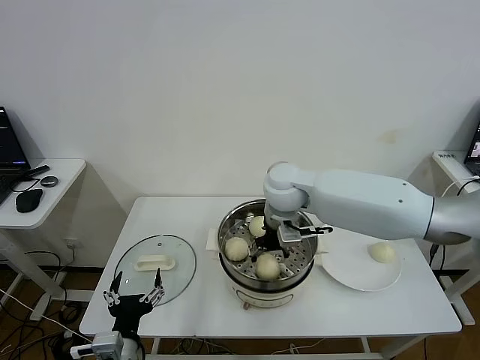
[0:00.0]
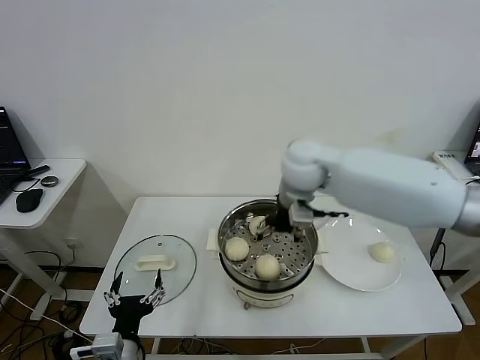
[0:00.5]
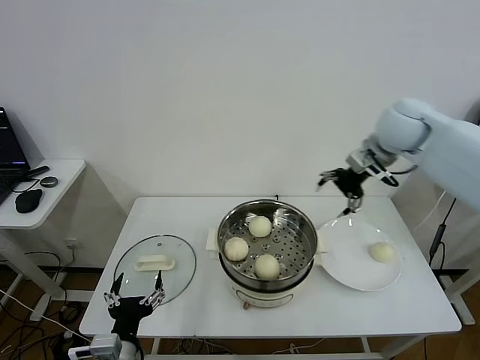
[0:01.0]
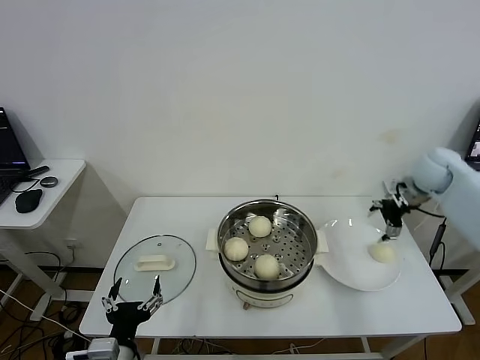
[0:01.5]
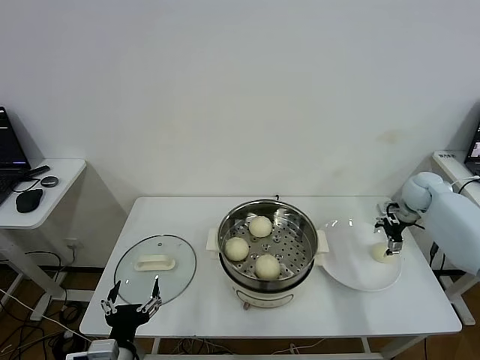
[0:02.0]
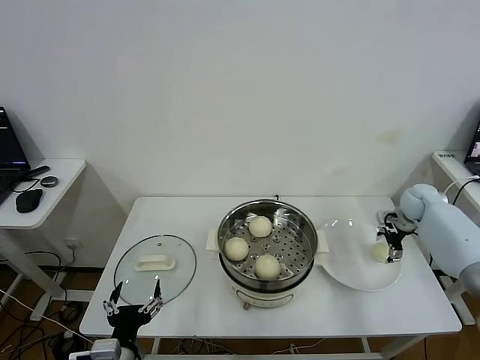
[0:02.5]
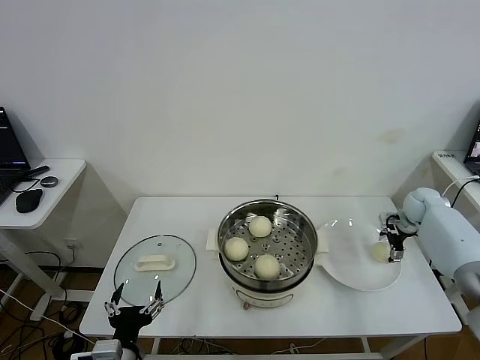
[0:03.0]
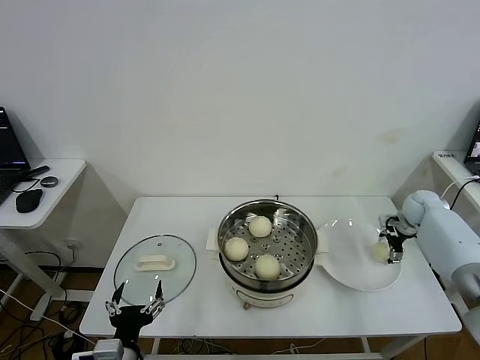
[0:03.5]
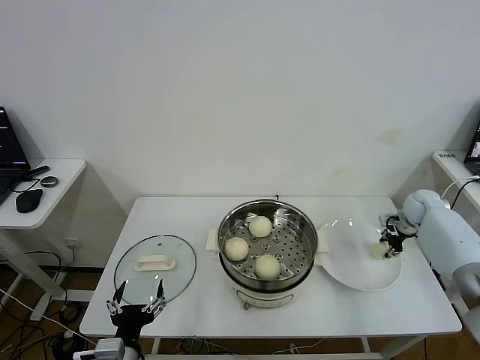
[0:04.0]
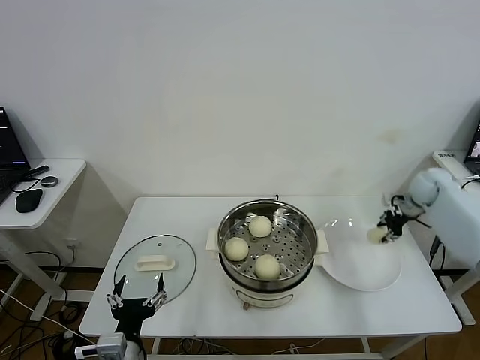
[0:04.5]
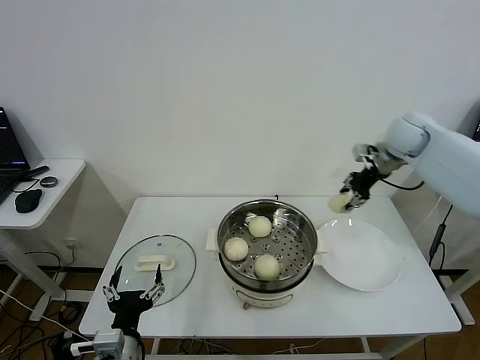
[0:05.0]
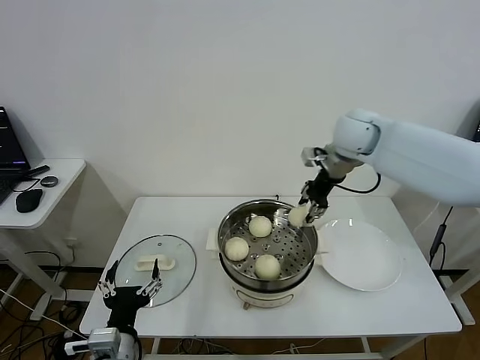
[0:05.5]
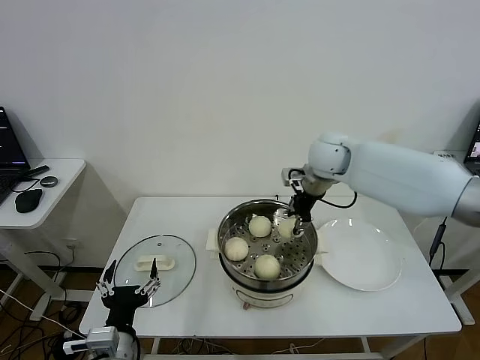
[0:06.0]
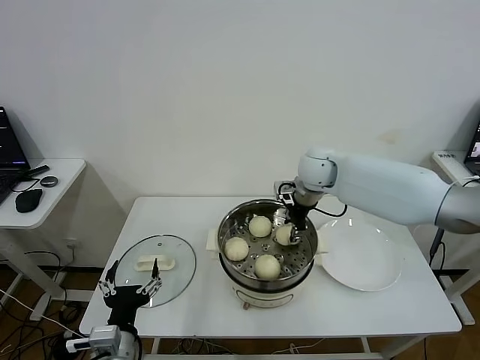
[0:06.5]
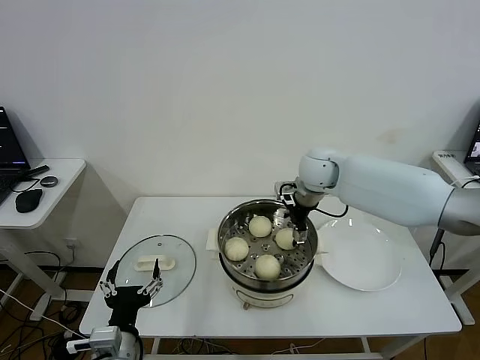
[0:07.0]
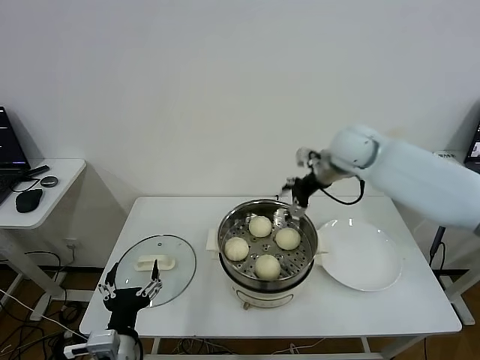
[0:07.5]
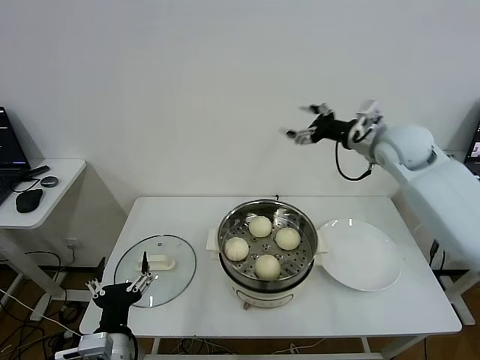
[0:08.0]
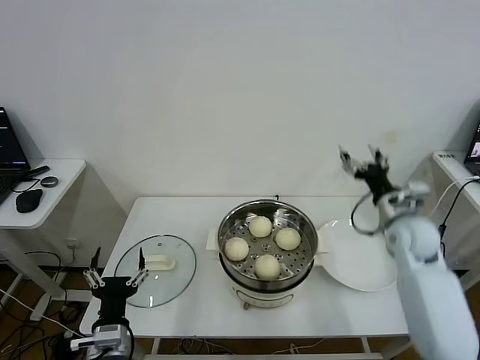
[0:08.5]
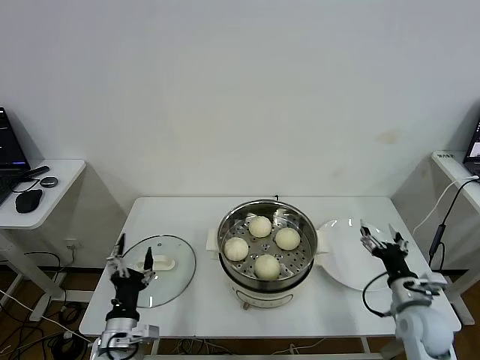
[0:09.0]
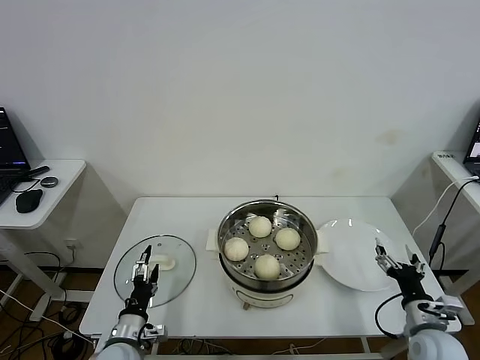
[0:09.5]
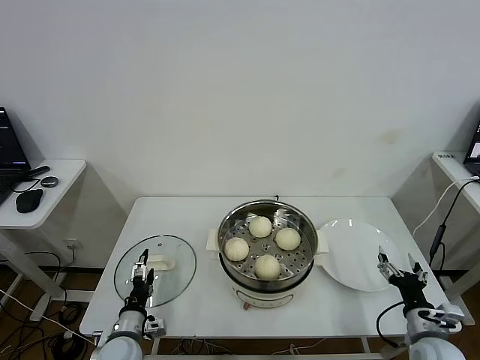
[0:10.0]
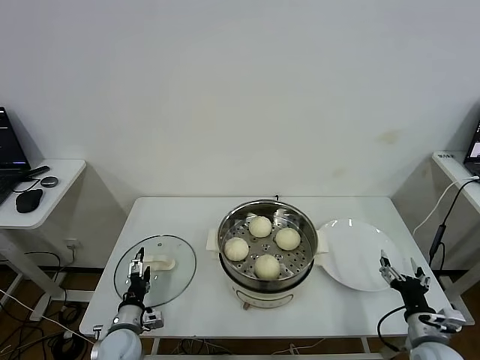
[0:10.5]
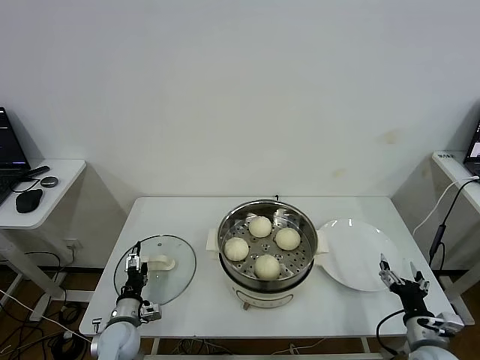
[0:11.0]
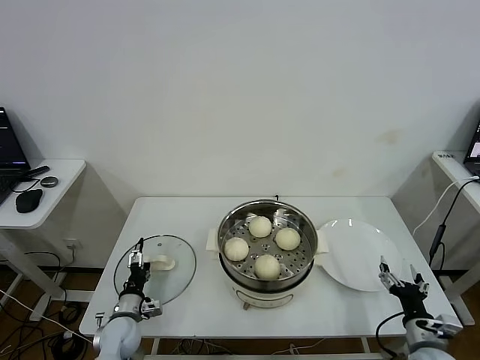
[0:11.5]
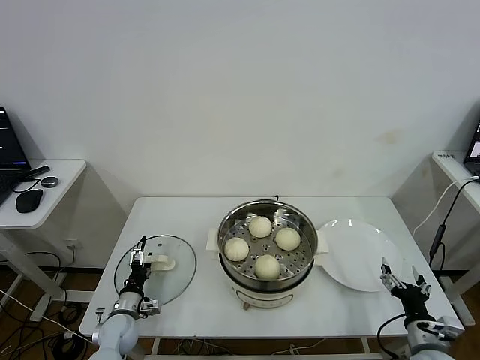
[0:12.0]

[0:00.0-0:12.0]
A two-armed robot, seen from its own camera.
Task of the whole recording: take steamed baozi put them in steamer.
Step, 0:00.5 to 0:04.0: Grasp the baozi in the plate with right gripper.
Step, 0:04.5 to 0:07.0: Place the baozi on the steamer with right gripper.
0:00.0 to 0:02.0: The right gripper heads to the right, covering about 40 cm.
0:02.0 to 0:04.0: The right gripper heads downward, covering some 5 cm, and closes.
0:04.0 to 0:06.0: The right gripper shifts some 35 cm to the left and upward.
0:06.0 to 0:08.0: The right gripper moves to the right, roughly 10 cm, and opens.
0:08.0 to 0:10.0: The right gripper heads backward and downward, covering roughly 40 cm. Meanwhile the left gripper shifts roughly 15 cm downward and forward.
0:10.0 to 0:12.0: The left gripper shifts roughly 10 cm forward and downward.

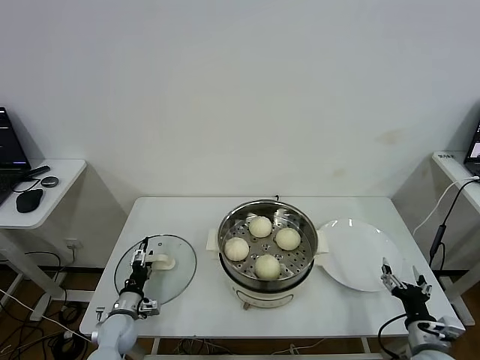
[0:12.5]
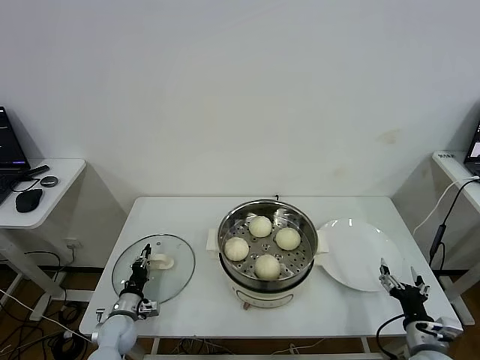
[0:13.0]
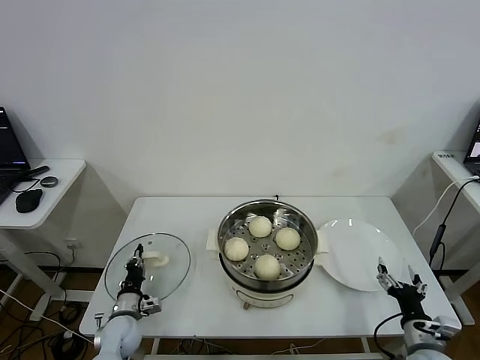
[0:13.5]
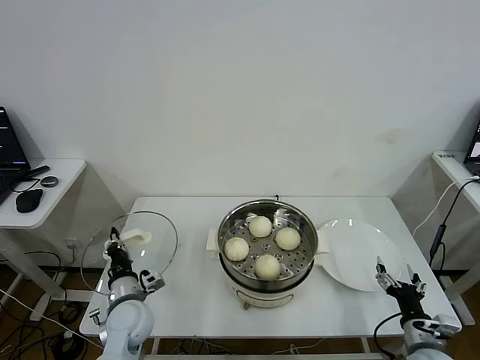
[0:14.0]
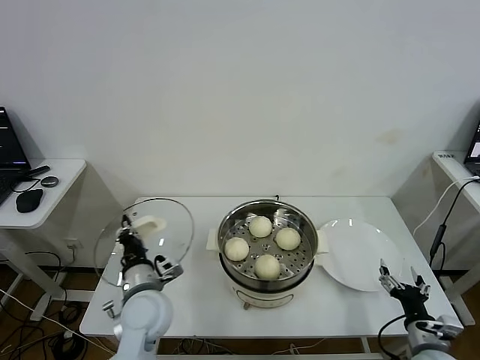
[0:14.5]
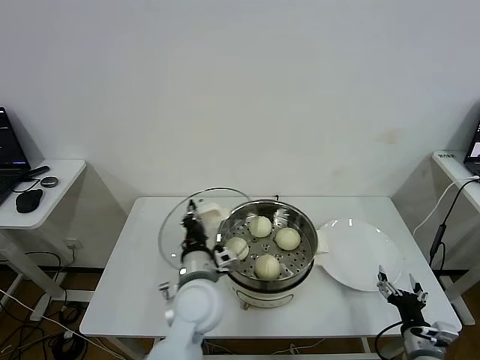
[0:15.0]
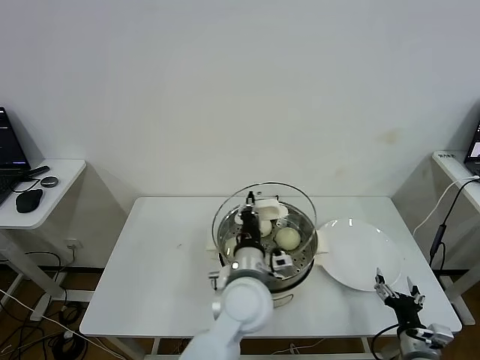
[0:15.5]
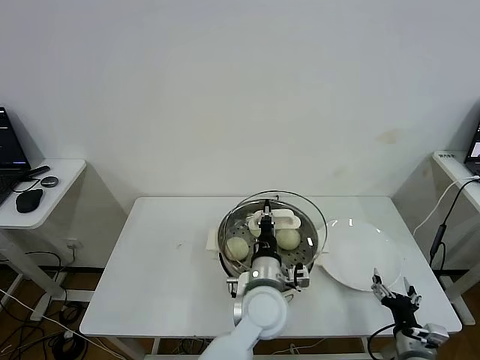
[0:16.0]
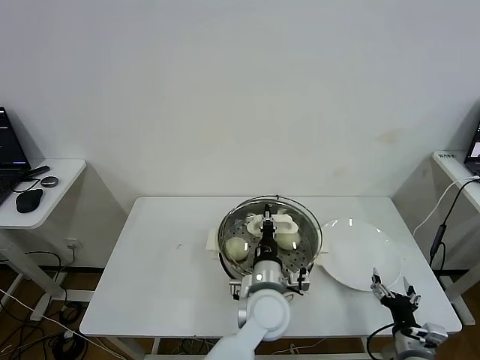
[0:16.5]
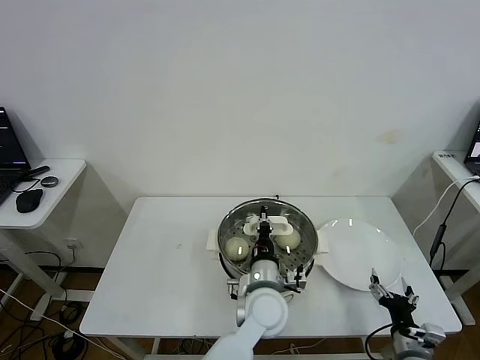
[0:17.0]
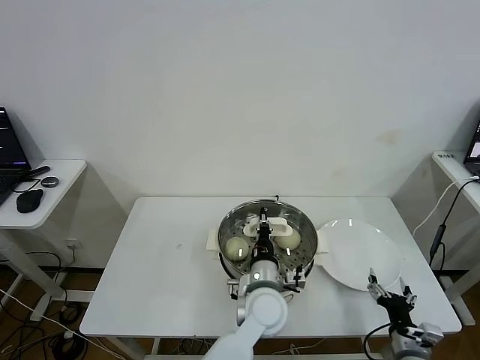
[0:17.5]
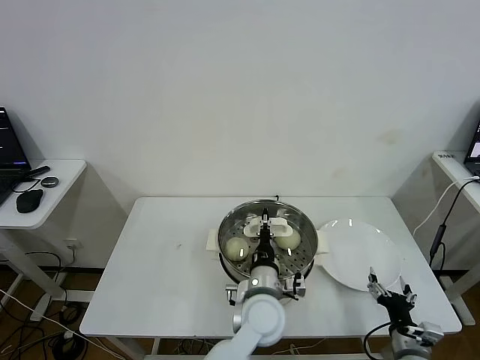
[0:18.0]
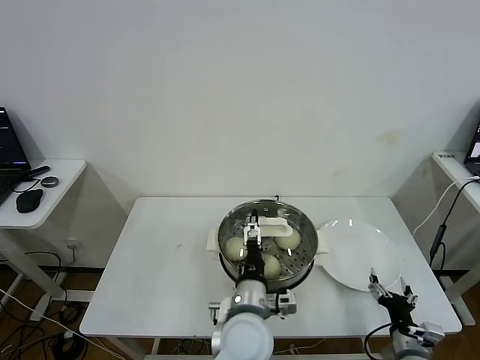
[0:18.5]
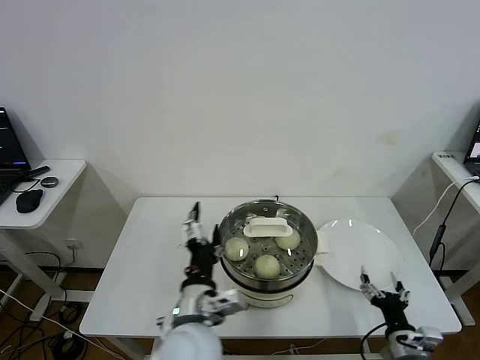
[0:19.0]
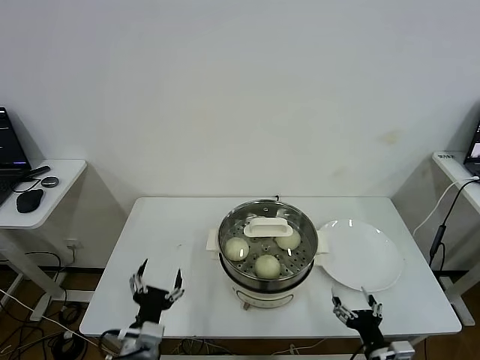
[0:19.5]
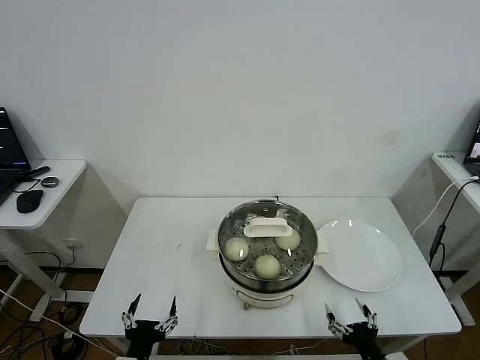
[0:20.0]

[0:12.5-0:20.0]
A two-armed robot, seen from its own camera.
Task of the whole recording: take steamed baozi put them in steamer.
Step, 0:14.0 to 0:18.5: Place the pot lid on the steamer with left gripper.
0:12.5 to 0:14.5: The left gripper shifts roughly 25 cm upward and to the right, and closes.
0:14.5 to 0:16.5: The left gripper moves to the right, some 25 cm.
0:16.5 to 0:18.0: The grippers move only a little.
0:18.0 to 0:20.0: The right gripper heads backward, covering about 5 cm, while the left gripper travels to the left and backward by some 30 cm, and opens.
